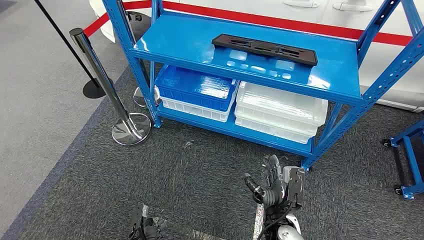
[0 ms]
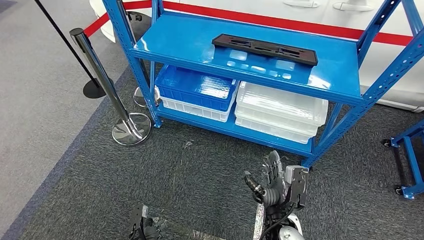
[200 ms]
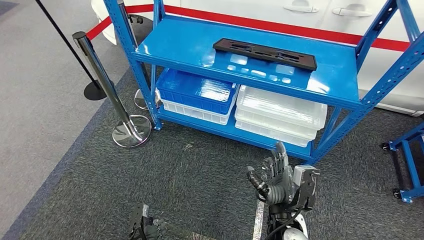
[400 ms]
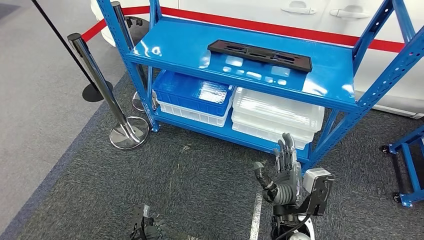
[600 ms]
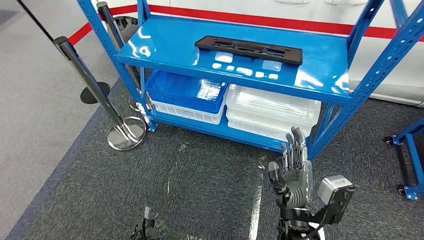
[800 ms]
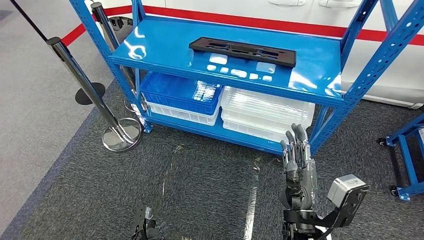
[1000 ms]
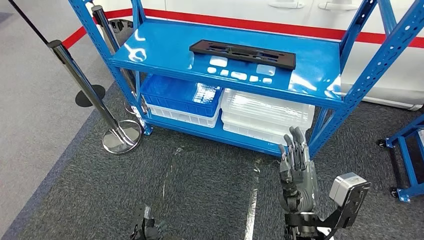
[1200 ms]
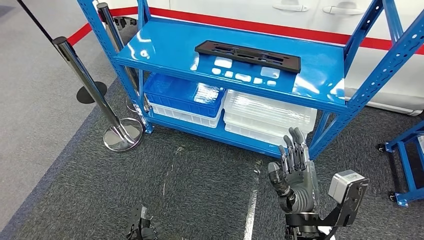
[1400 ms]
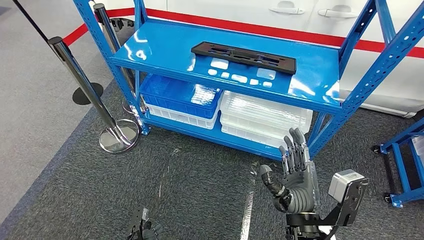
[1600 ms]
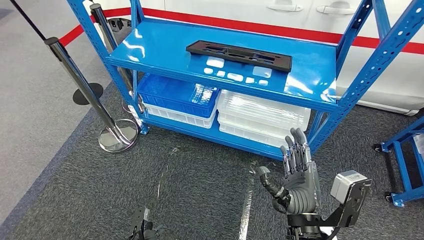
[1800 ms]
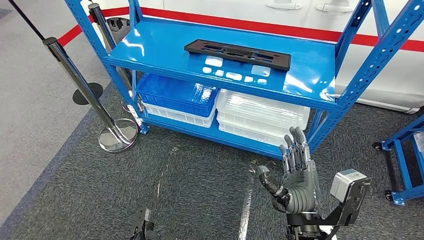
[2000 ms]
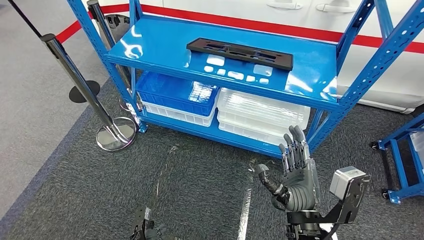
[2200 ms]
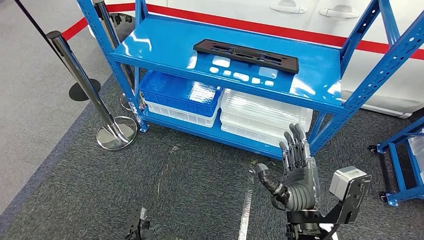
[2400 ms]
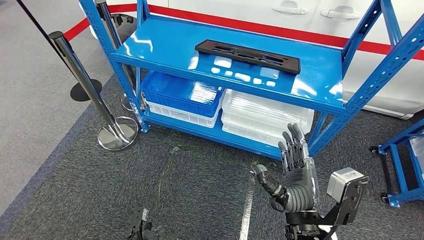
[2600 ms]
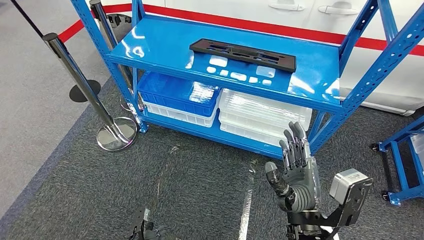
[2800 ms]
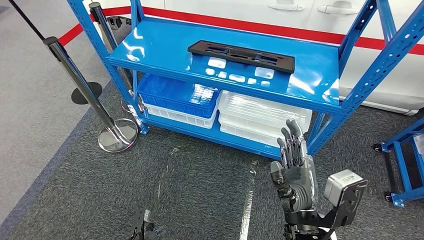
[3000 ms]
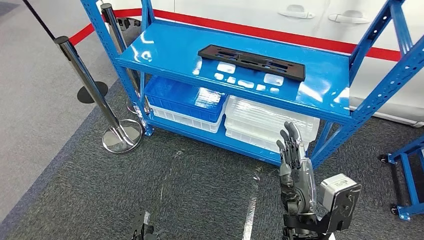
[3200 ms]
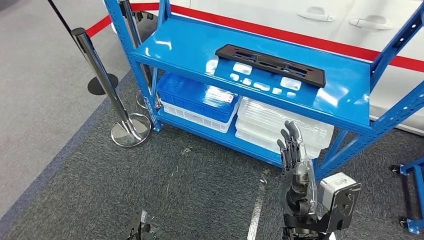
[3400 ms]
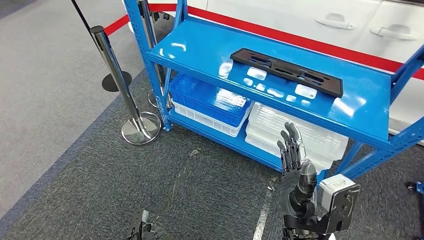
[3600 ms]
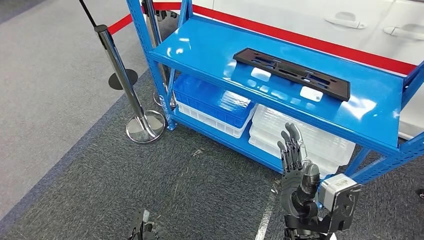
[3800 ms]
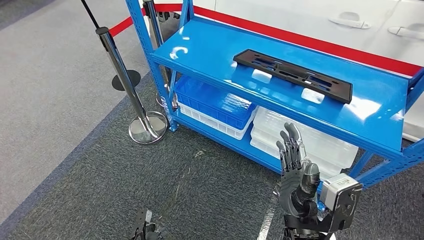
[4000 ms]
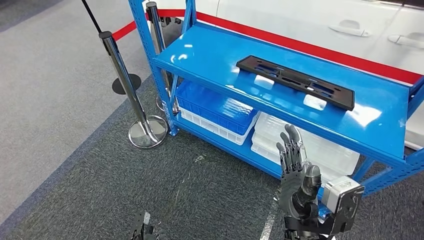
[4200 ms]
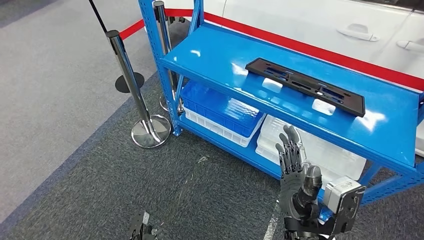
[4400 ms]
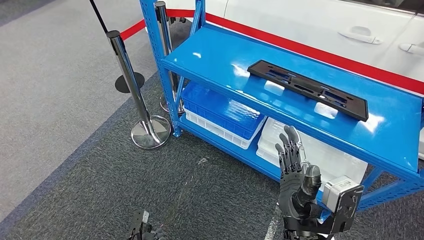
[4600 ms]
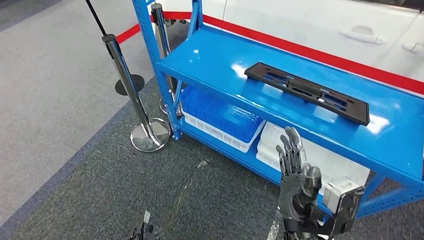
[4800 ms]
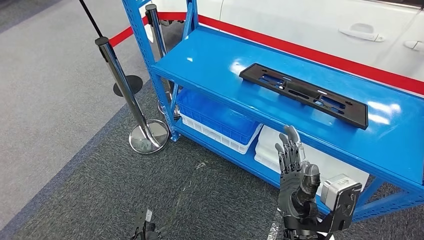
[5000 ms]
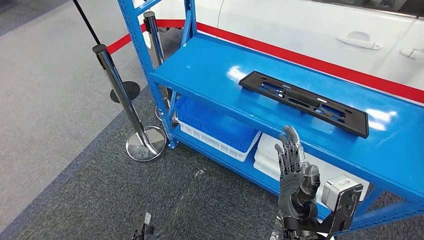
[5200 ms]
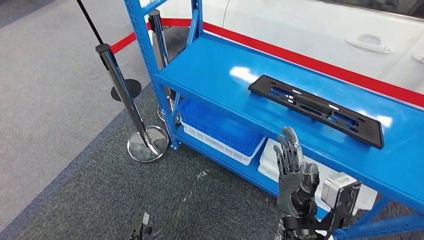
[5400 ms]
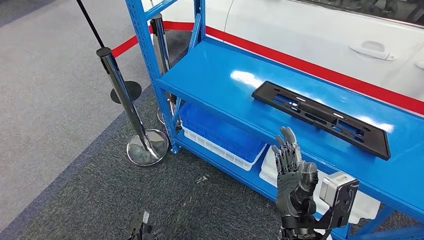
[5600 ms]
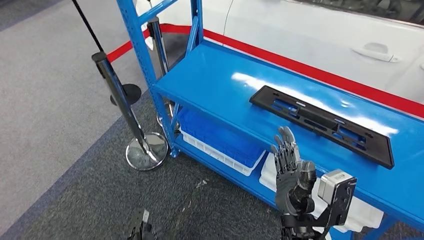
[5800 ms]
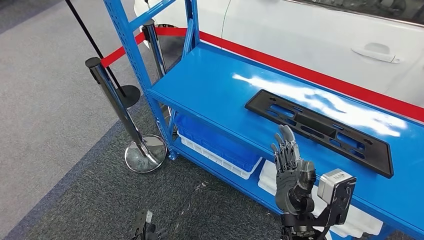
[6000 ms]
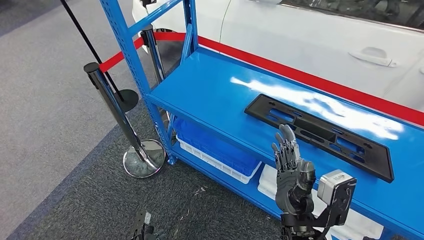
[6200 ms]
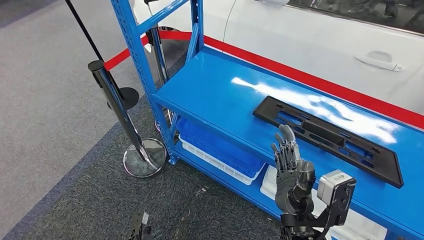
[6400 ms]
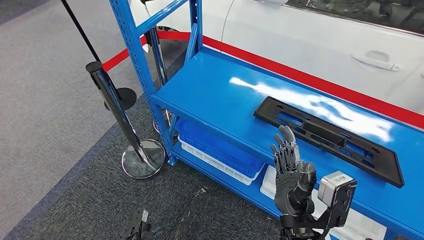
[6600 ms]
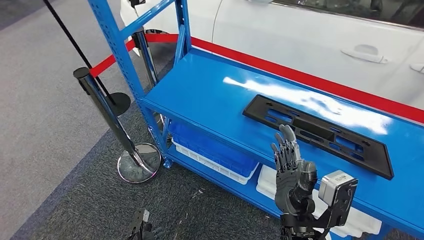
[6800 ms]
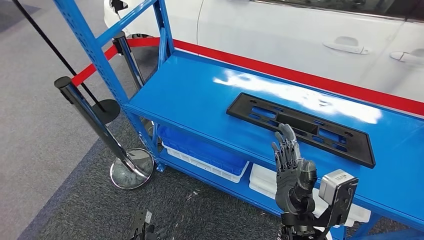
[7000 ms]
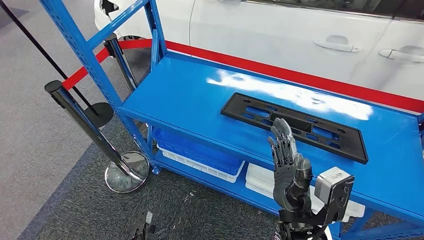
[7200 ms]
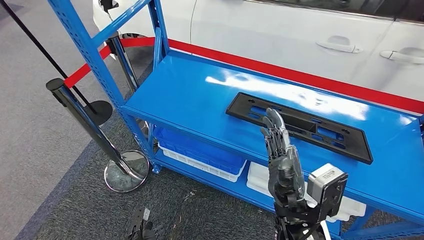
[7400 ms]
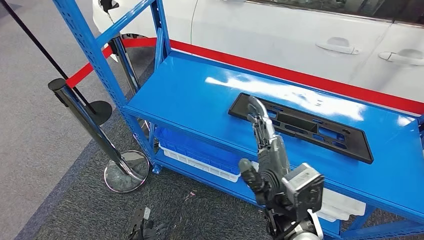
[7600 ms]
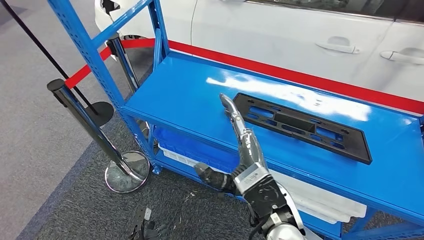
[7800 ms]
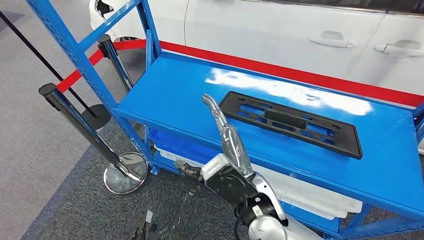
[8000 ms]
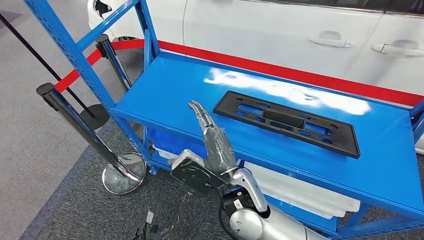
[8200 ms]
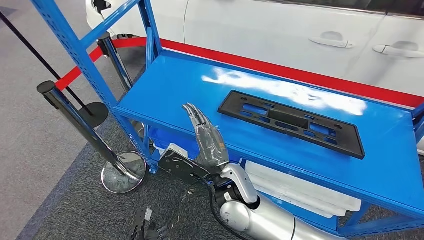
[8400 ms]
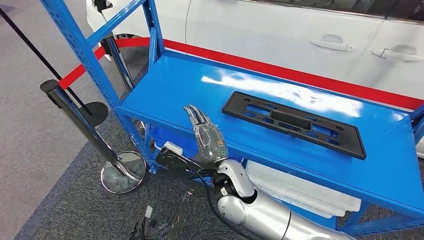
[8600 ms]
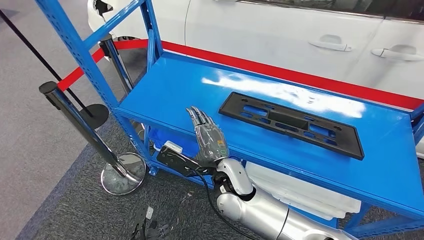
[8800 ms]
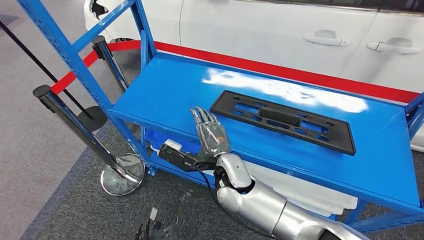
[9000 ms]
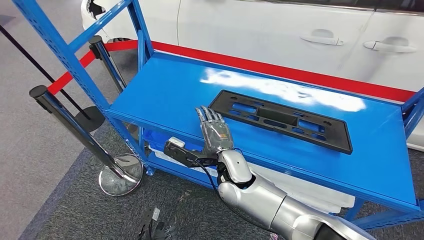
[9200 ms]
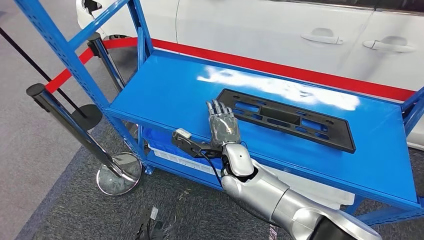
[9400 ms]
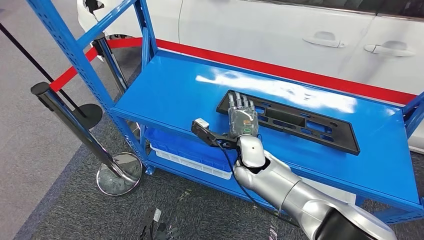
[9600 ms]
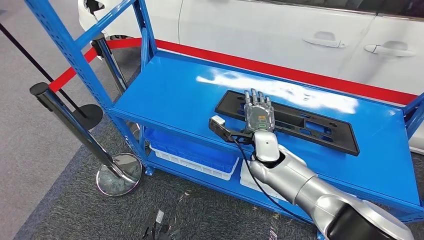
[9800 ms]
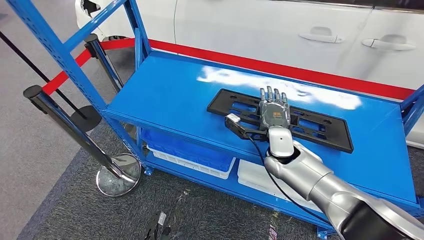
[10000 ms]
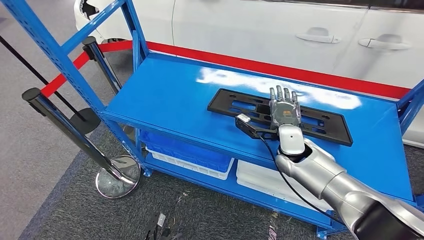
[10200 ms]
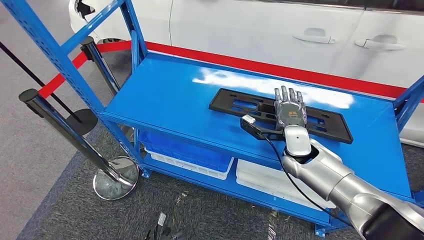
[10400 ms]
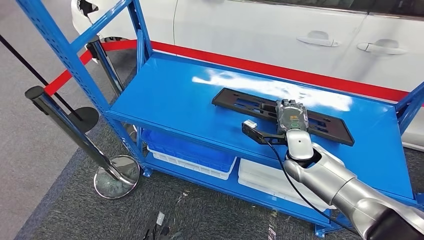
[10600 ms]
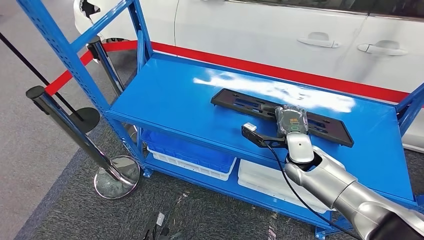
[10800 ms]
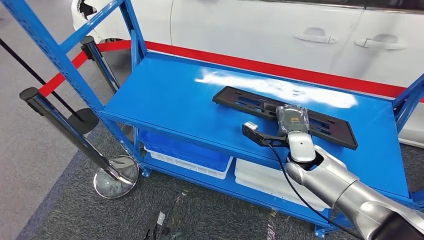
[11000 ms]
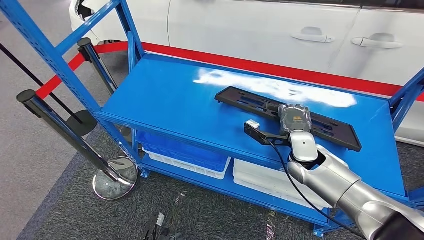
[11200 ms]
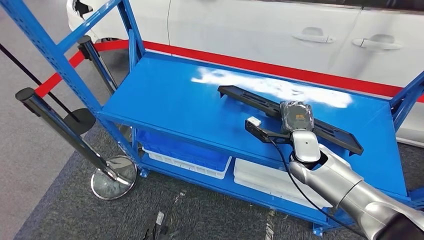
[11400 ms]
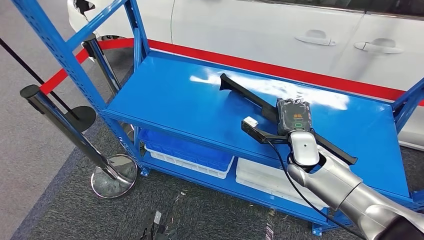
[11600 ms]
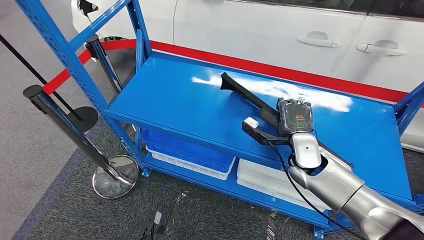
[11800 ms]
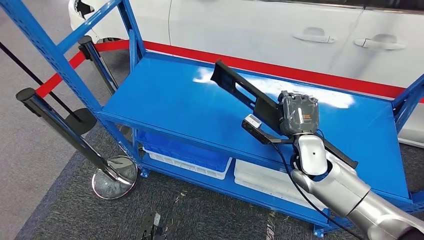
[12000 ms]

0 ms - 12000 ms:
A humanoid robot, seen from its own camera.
1600 ms - 3000 ms: The hands make only small movements.

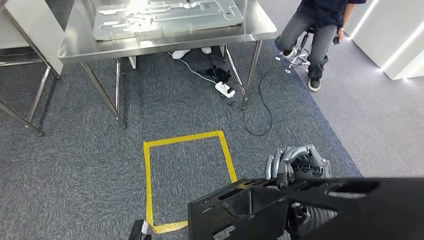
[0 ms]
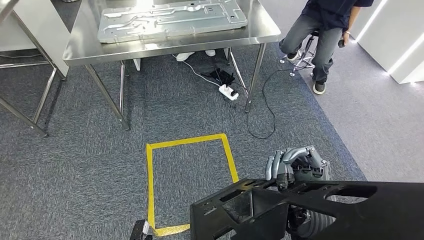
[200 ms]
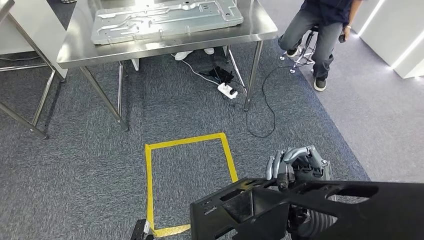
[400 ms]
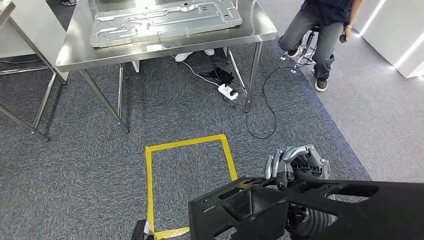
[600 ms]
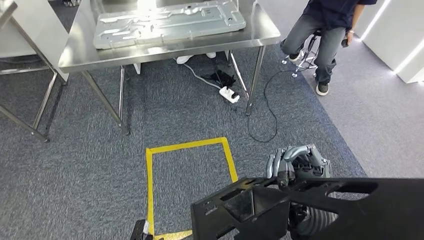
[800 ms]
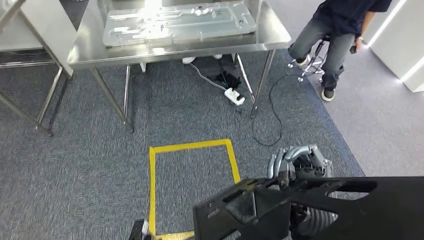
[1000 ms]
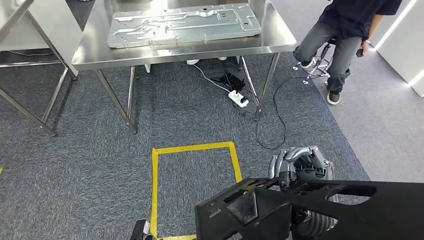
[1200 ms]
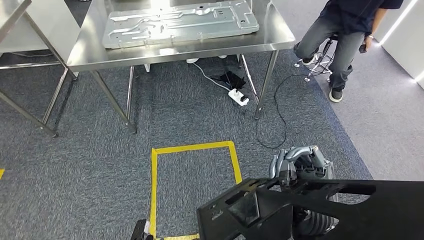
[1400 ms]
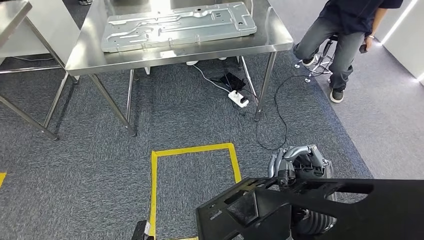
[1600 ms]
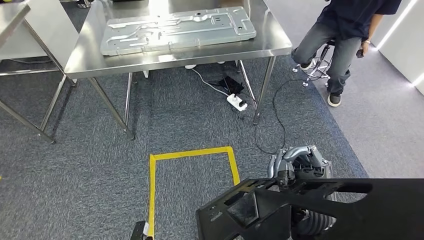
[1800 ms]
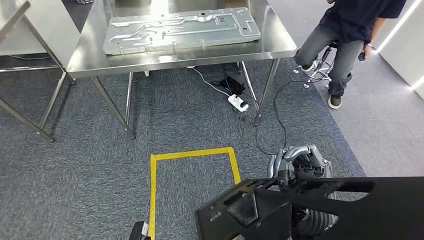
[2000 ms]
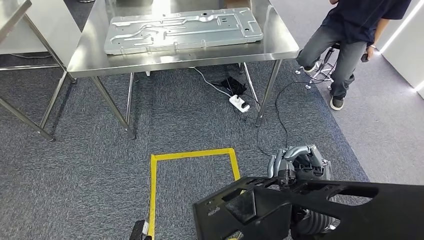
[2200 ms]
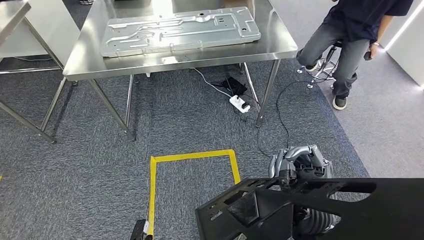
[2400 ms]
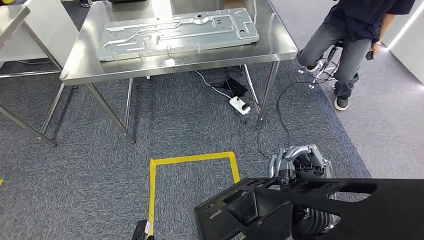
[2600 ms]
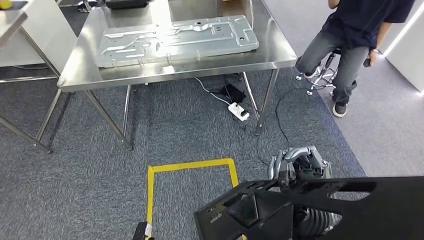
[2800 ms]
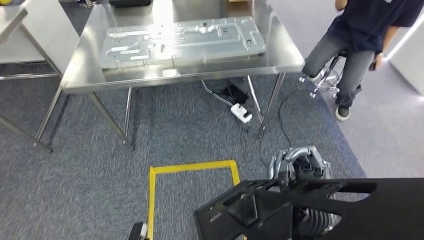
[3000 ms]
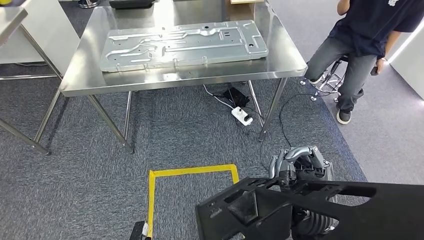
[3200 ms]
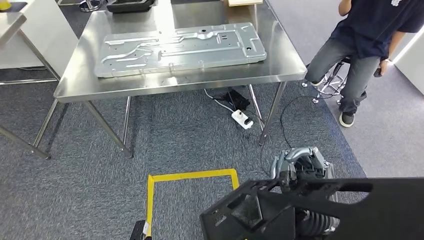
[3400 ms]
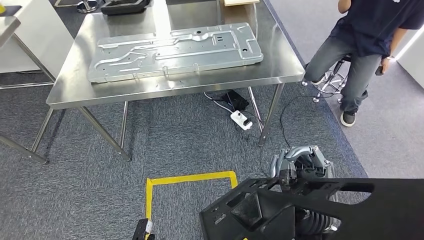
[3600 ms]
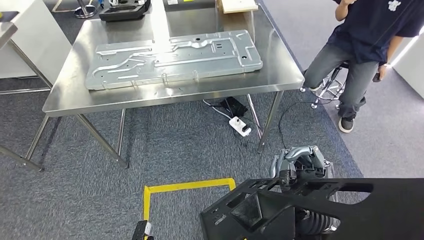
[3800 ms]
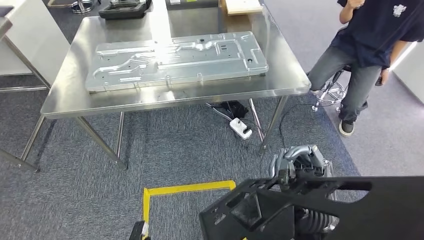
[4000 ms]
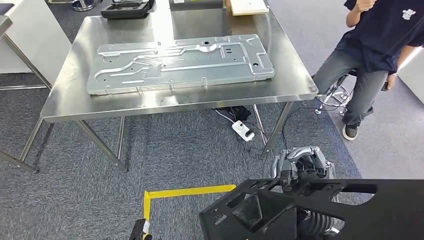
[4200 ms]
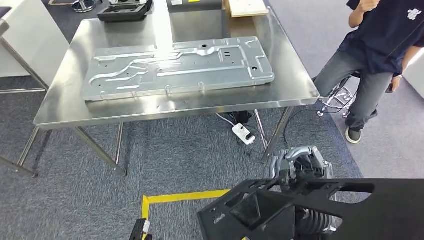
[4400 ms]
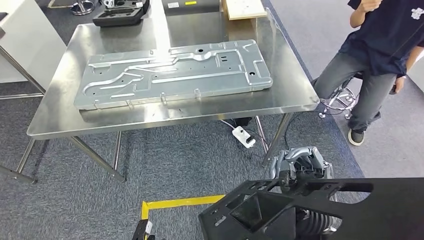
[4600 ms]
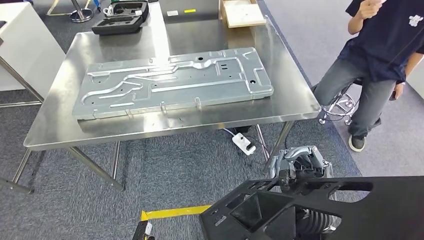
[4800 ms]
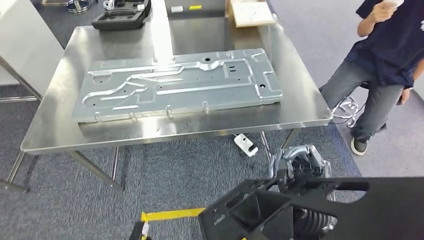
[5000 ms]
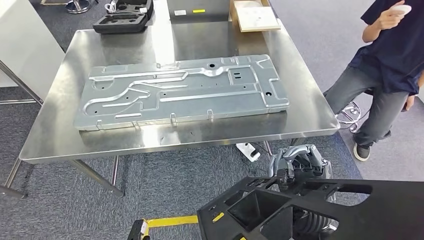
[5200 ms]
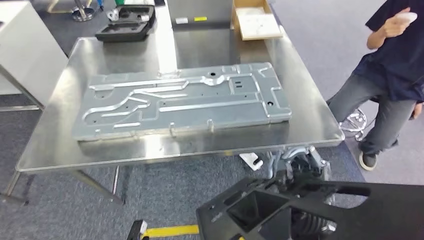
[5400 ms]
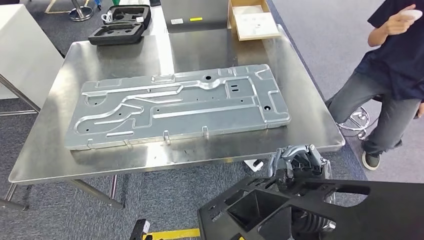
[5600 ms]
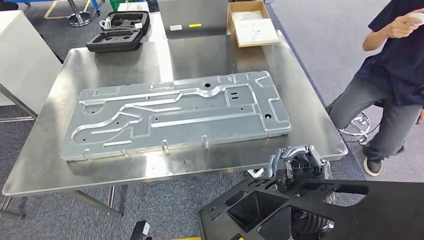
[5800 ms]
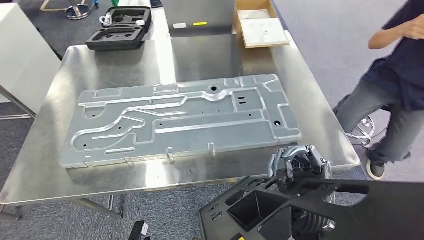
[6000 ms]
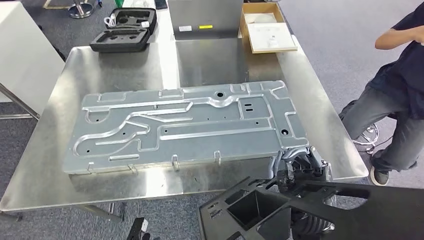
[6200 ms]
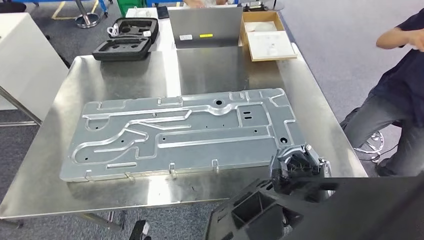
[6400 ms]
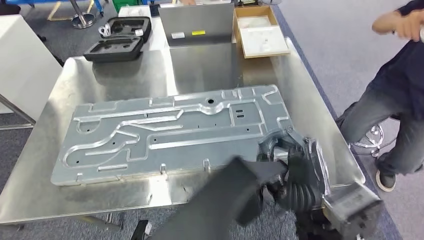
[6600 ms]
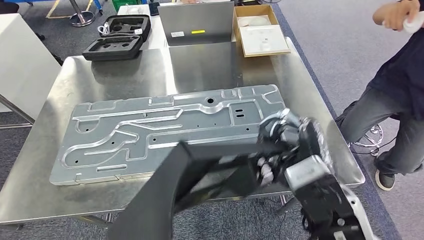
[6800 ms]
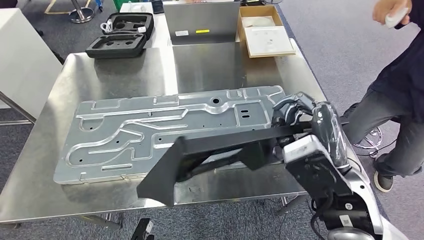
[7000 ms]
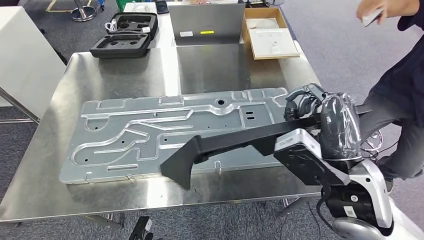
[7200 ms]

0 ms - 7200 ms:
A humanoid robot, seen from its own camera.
Step, 0 ms - 5600 ms: Move the large material to the workbench.
